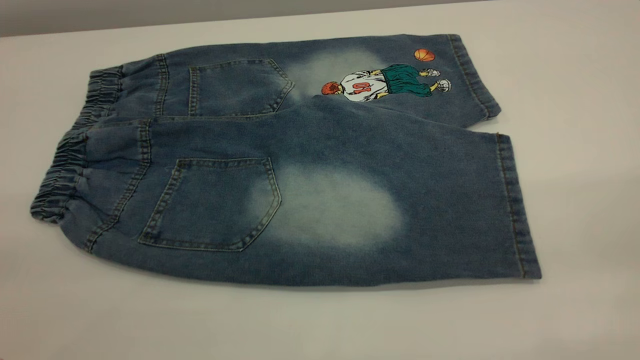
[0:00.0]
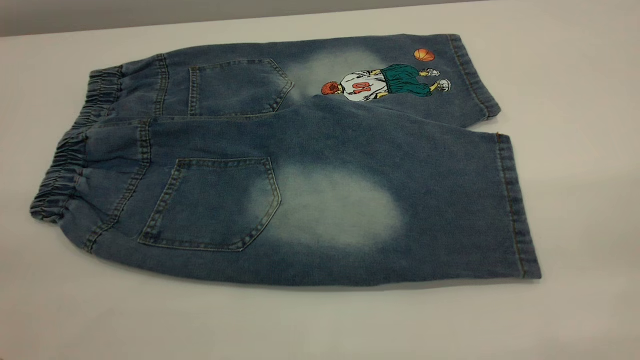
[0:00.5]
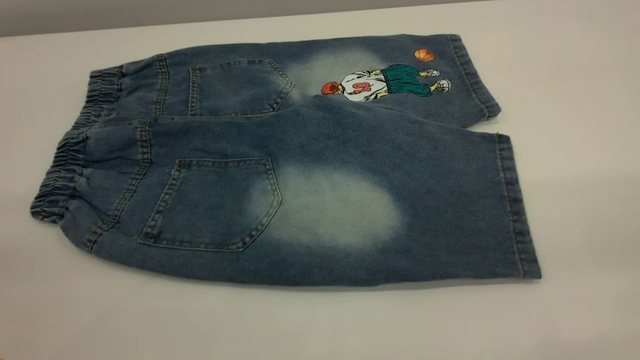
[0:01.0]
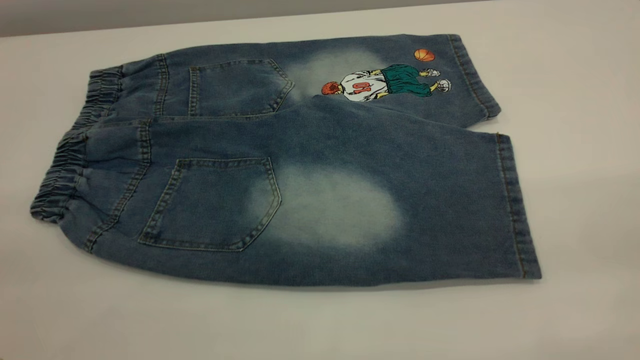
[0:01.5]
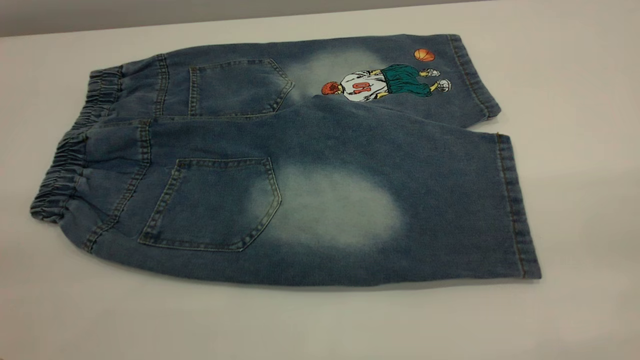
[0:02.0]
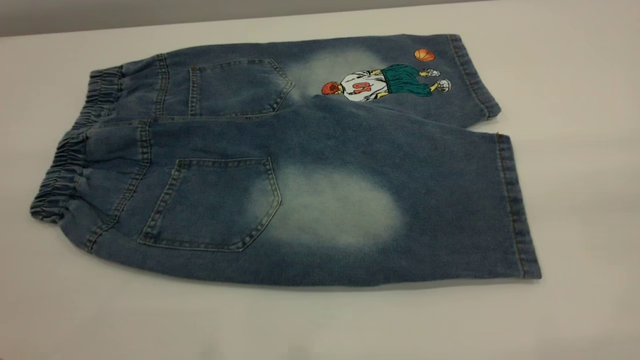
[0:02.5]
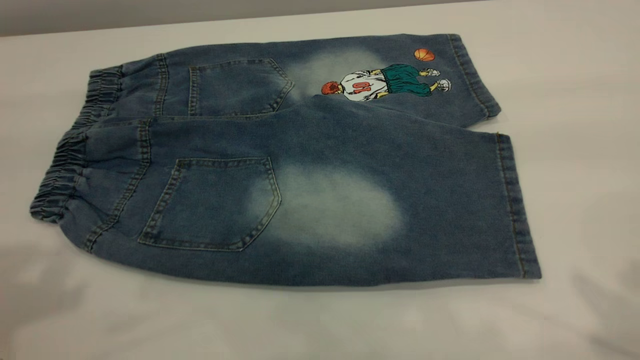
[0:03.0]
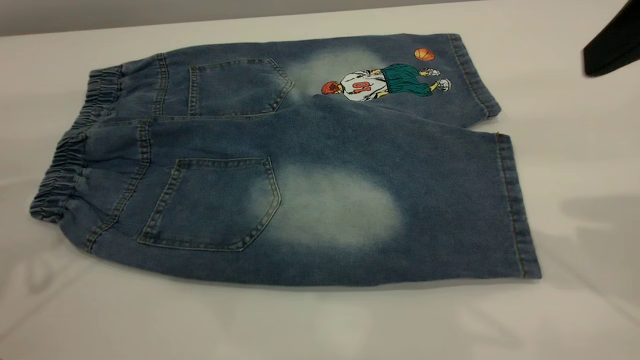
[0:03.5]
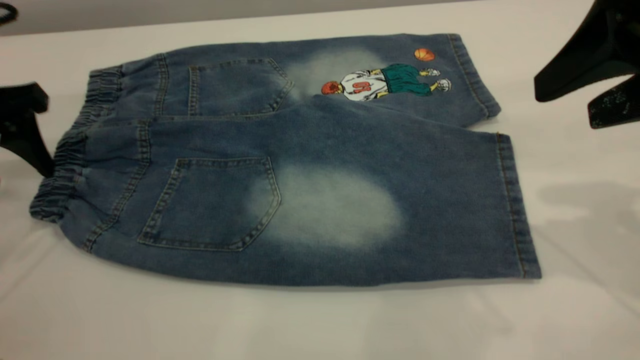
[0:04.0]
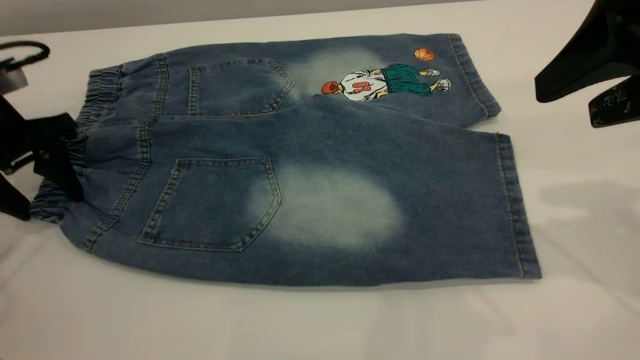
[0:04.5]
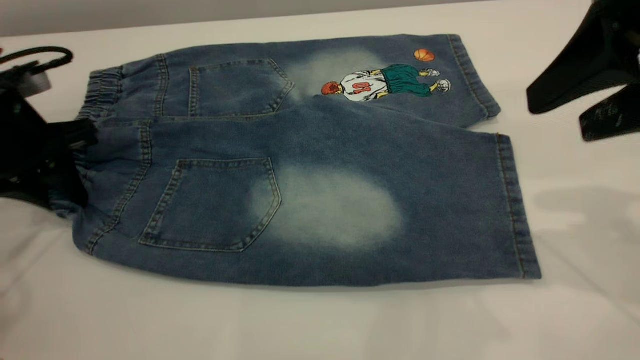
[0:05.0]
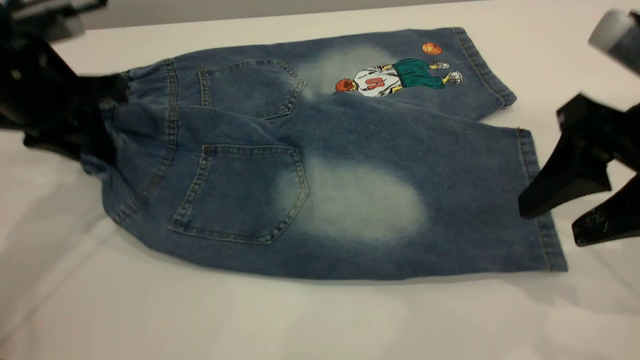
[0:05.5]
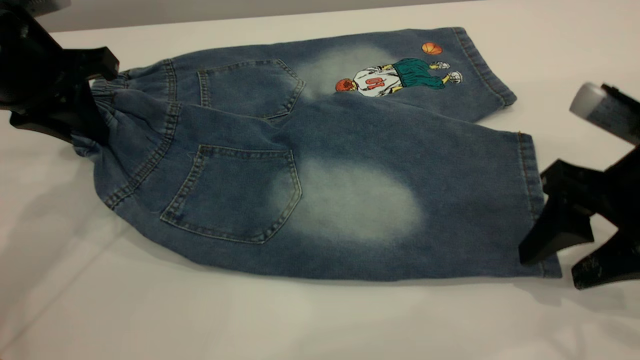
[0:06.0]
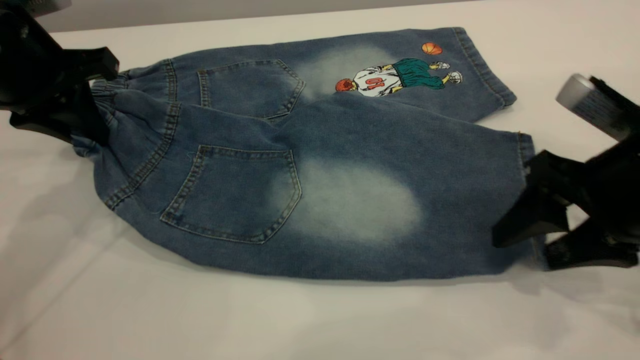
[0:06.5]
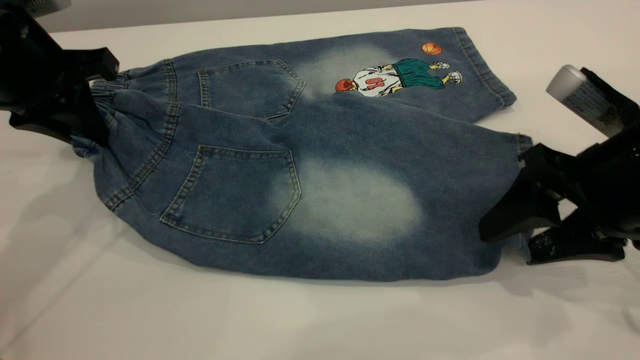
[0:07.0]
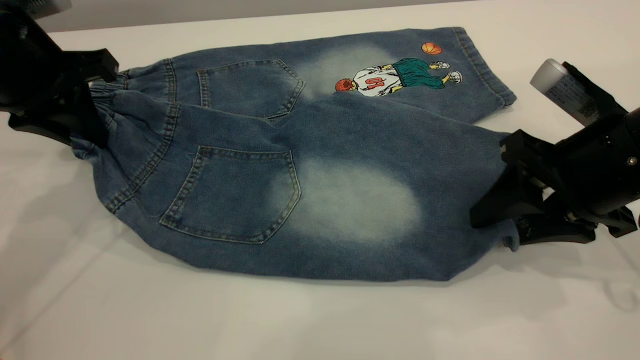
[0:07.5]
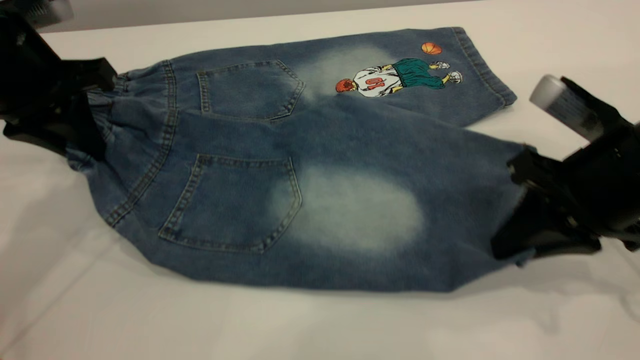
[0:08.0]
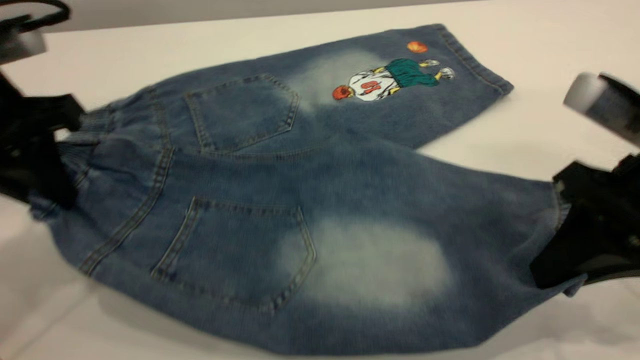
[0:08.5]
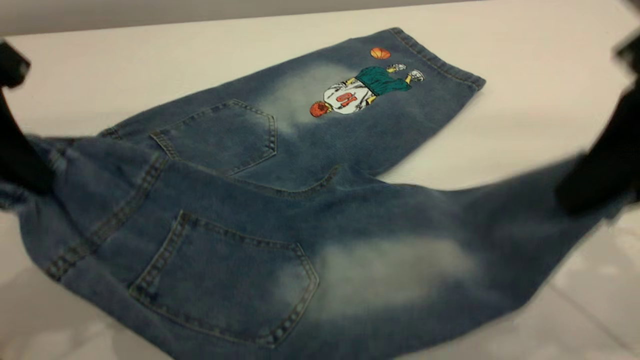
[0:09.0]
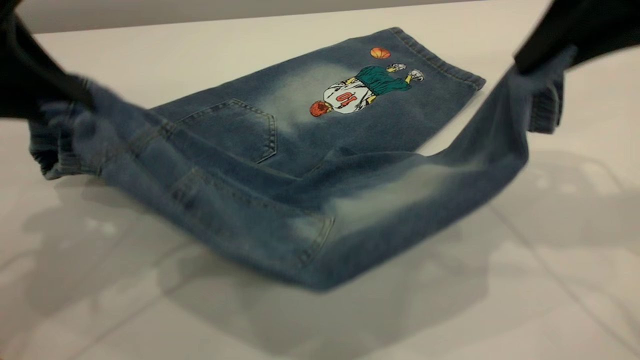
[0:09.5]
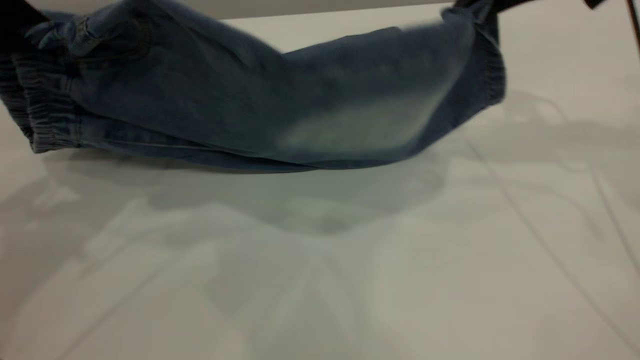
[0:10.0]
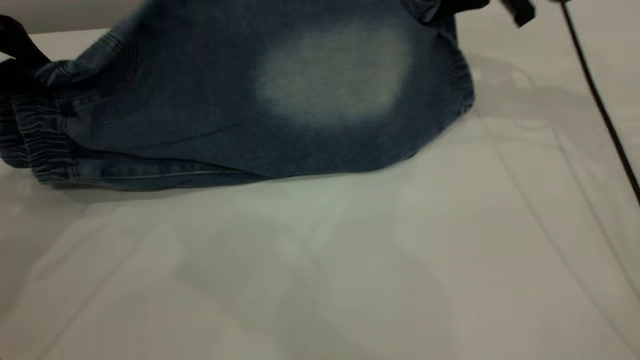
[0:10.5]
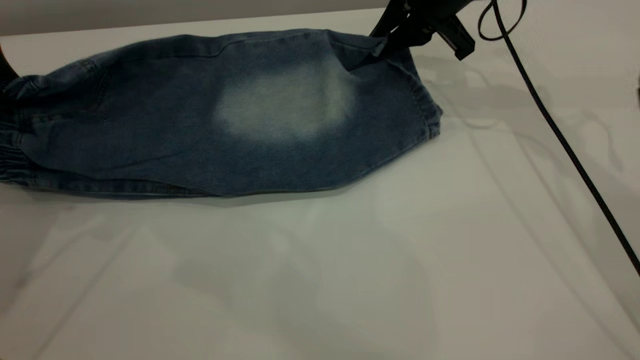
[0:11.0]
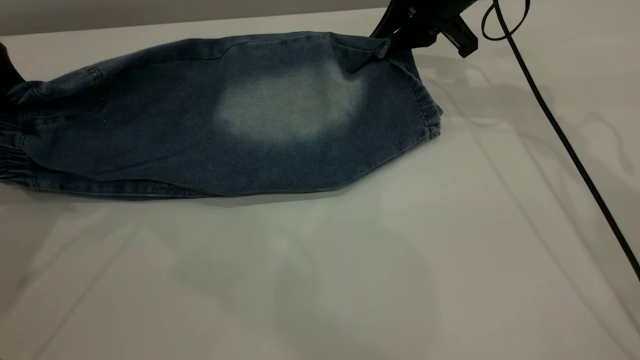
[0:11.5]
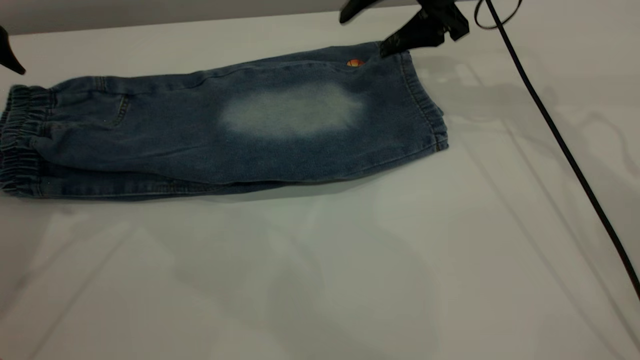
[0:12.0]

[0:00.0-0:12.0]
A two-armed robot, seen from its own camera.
0:02.0 to 0:04.0: Both grippers travel together forward and downward, some 30 cm.
0:04.0 to 0:06.0: The right gripper heads downward, covering about 15 cm; the left gripper heads to the right, covering approximately 5 cm, goes downward and returns, about 5 cm each way, and closes.
0:06.0 to 0:08.0: The right gripper closes its fingers.
0:08.0 to 0:10.0: The right gripper is displaced forward and upward by about 20 cm. The left gripper heads upward, covering approximately 5 cm.
0:10.0 to 0:12.0: The left gripper moves downward, approximately 5 cm, and opens up. Meanwhile the right gripper moves forward, downward and to the left, some 15 cm, and opens.

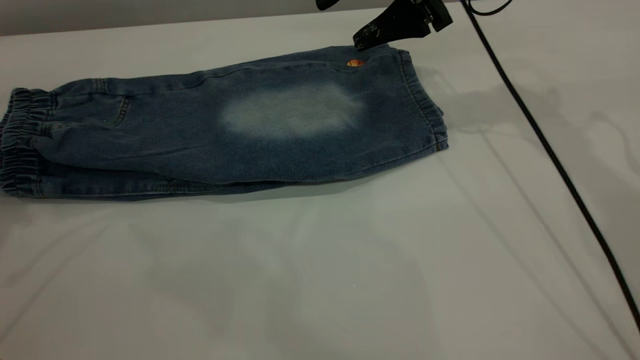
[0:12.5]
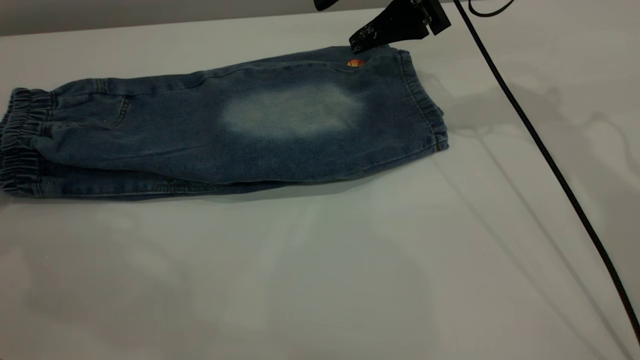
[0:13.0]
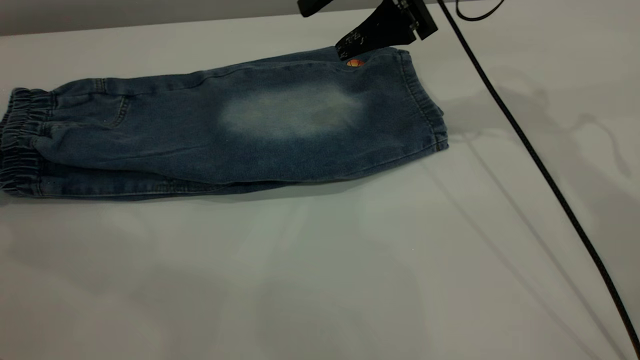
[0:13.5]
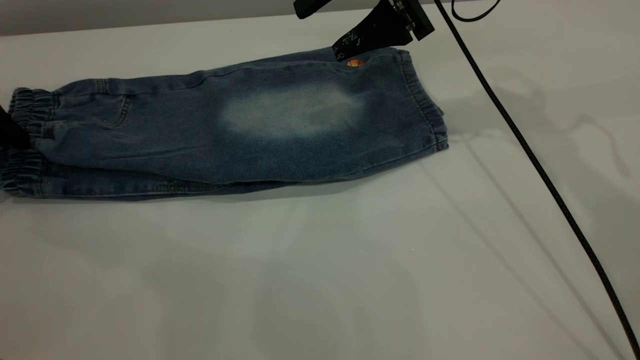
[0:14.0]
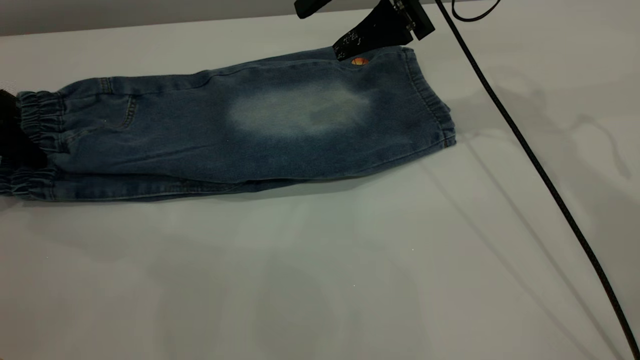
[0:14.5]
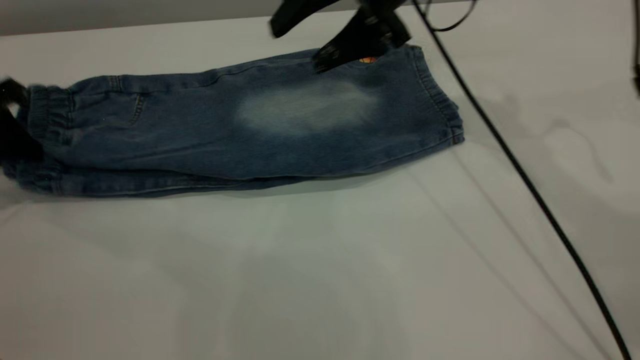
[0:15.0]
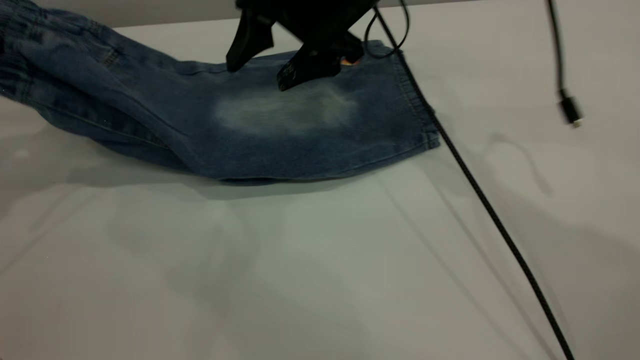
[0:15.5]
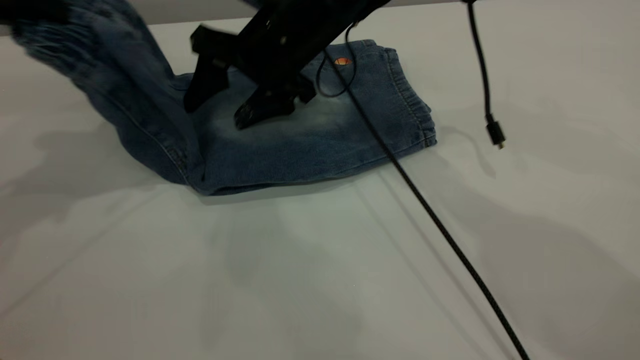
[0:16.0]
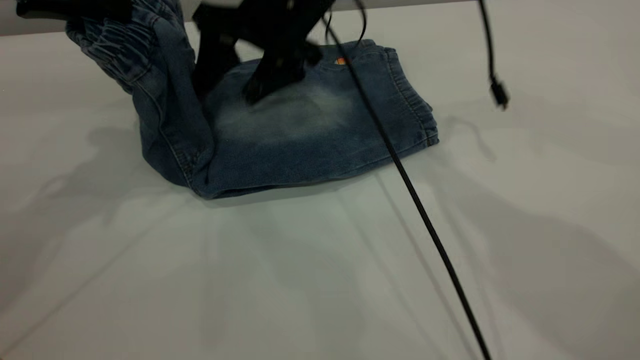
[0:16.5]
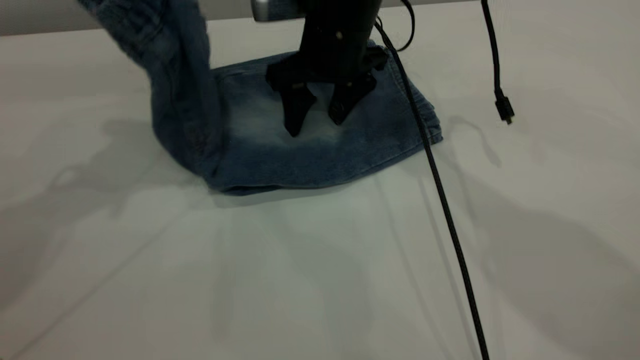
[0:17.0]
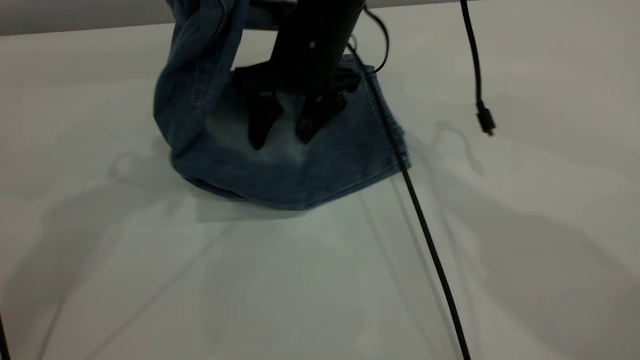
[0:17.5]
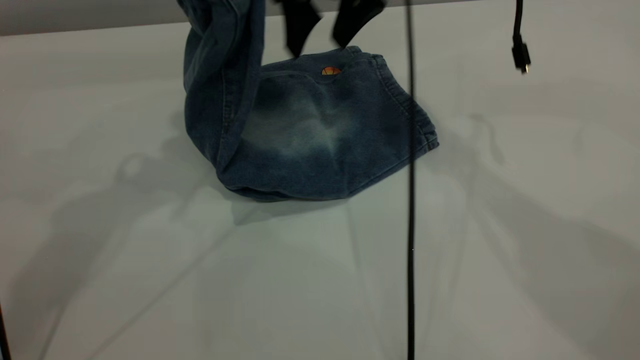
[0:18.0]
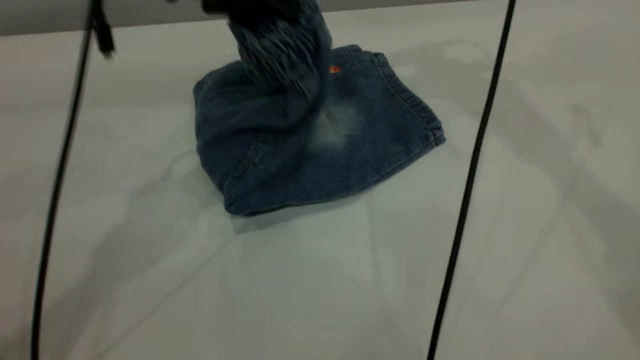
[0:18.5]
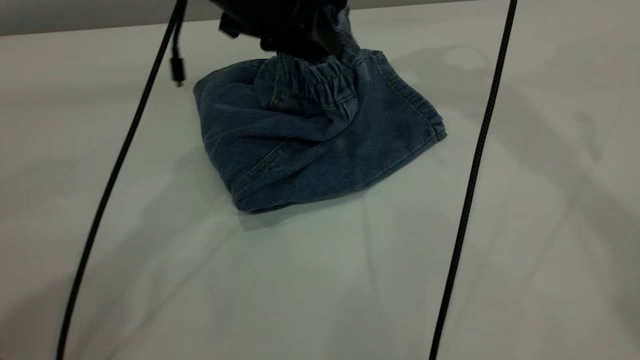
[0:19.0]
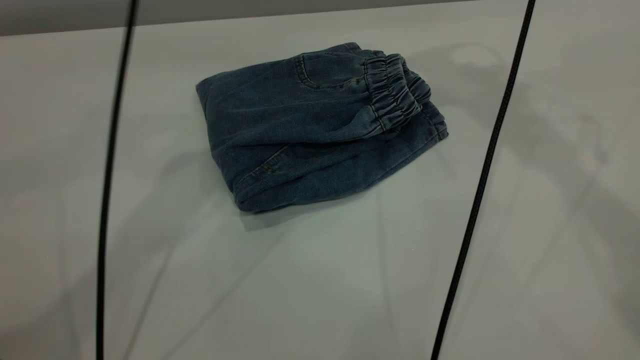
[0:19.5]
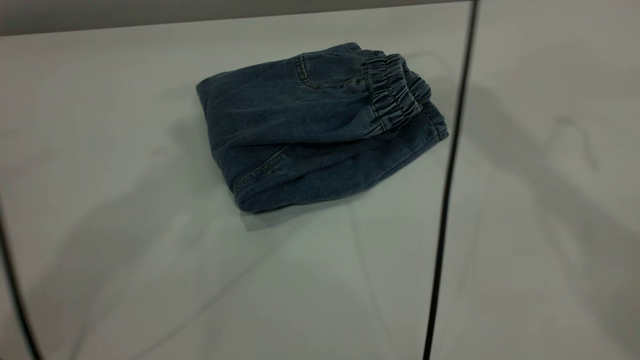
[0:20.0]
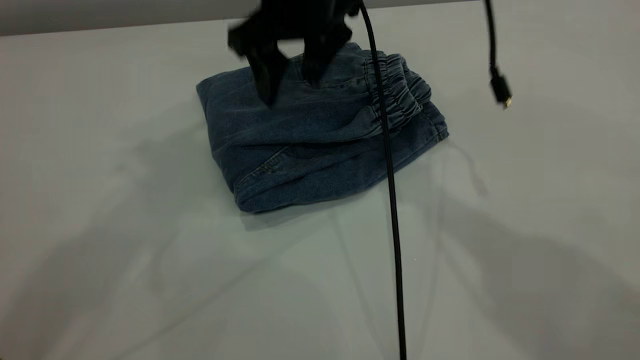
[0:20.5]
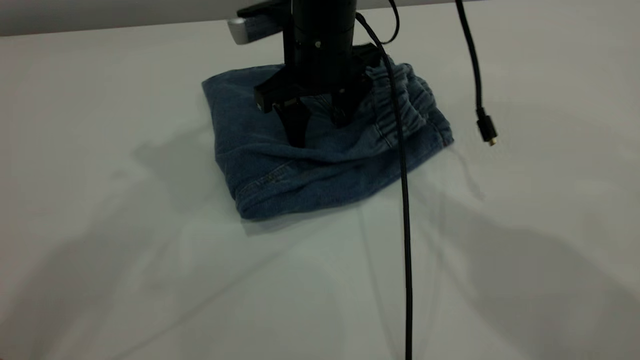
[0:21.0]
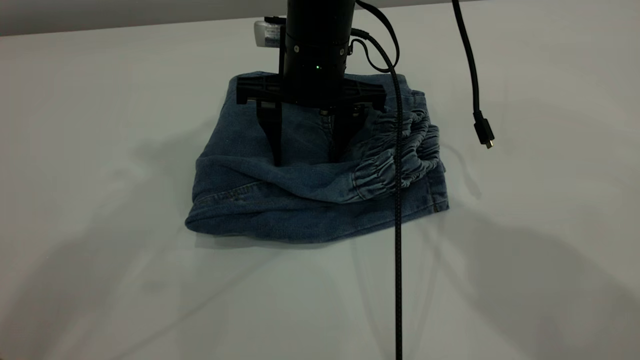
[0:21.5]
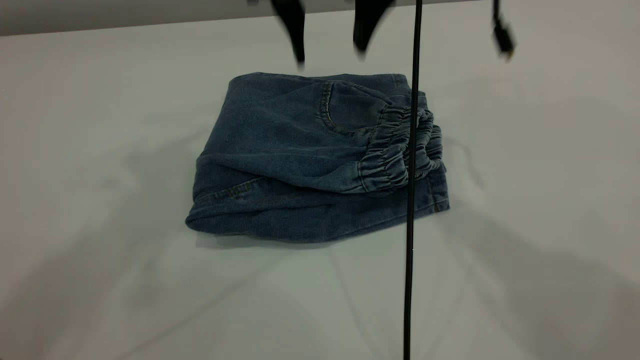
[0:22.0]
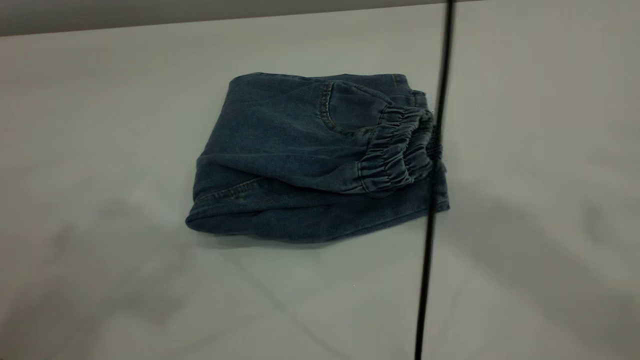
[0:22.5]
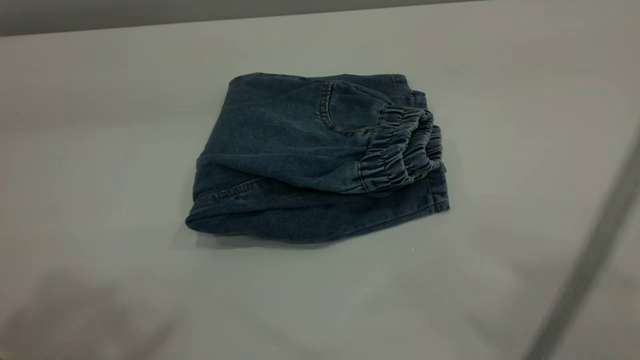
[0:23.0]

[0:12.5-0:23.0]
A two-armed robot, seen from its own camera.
Step, 0:14.5 to 0:19.5: Fold the pants from left to right.
0:12.5 to 0:14.5: The left gripper goes approximately 10 cm downward, and closes.
0:14.5 to 0:16.5: The left gripper shifts about 20 cm upward and to the right, and closes, while the right gripper heads to the left, covering roughly 15 cm.
0:16.5 to 0:19.0: The left gripper goes some 15 cm to the right. The right gripper shifts approximately 20 cm upward and to the right.
0:19.0 to 0:21.0: The left gripper heads upward, covering approximately 30 cm, and opens. Meanwhile the right gripper is displaced downward and to the left by approximately 25 cm.
0:21.0 to 0:23.0: The right gripper travels upward, backward and to the right by approximately 50 cm. Meanwhile the left gripper goes some 15 cm backward.
